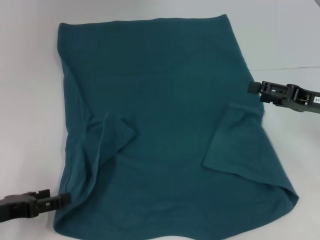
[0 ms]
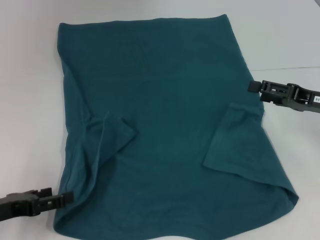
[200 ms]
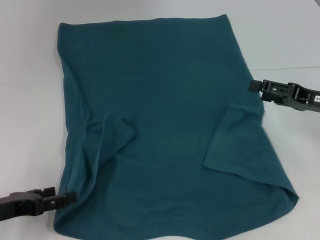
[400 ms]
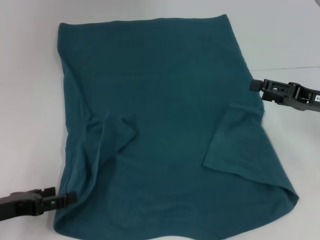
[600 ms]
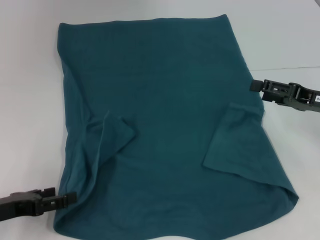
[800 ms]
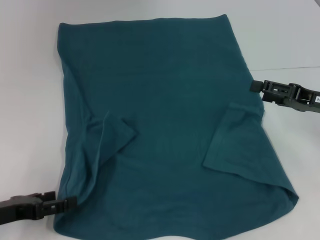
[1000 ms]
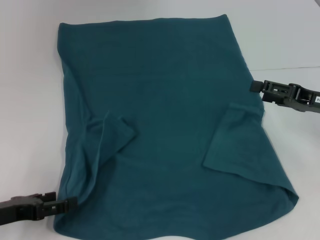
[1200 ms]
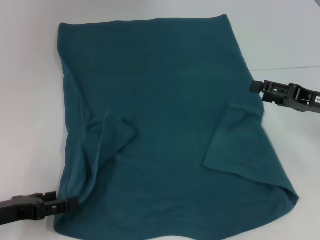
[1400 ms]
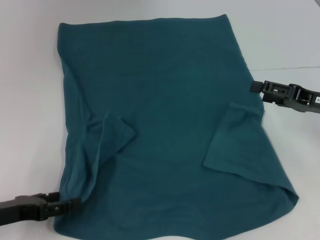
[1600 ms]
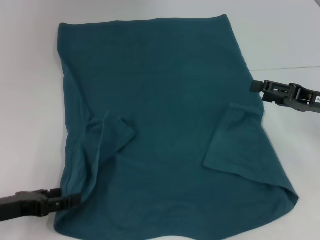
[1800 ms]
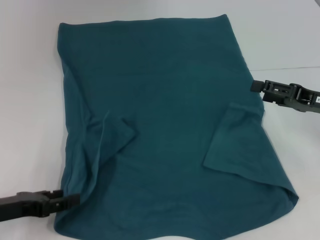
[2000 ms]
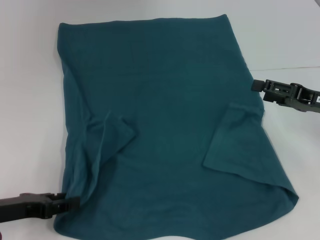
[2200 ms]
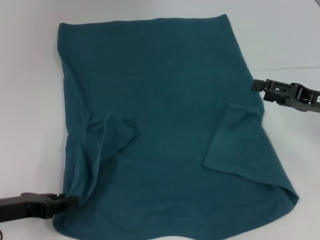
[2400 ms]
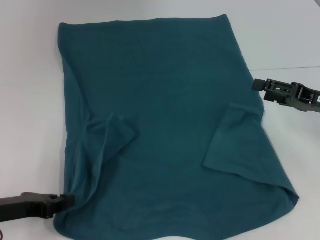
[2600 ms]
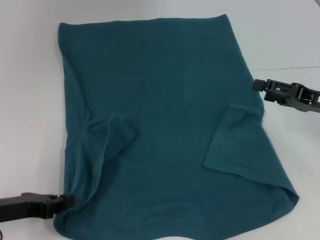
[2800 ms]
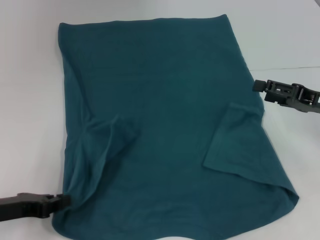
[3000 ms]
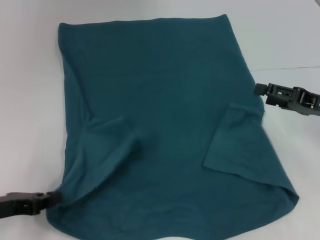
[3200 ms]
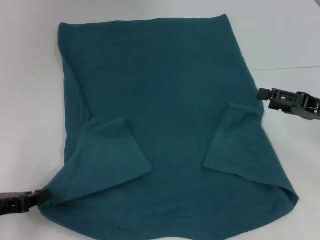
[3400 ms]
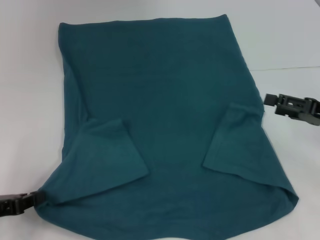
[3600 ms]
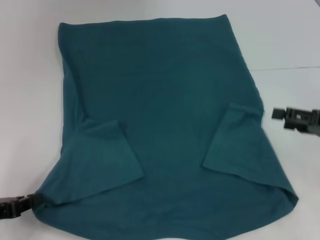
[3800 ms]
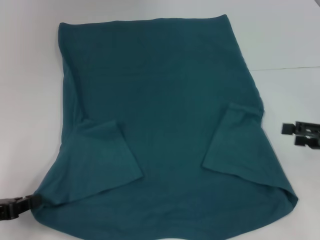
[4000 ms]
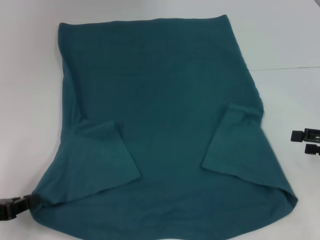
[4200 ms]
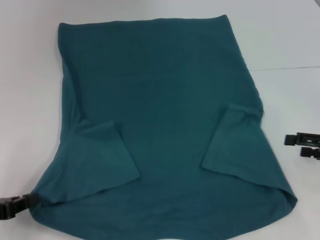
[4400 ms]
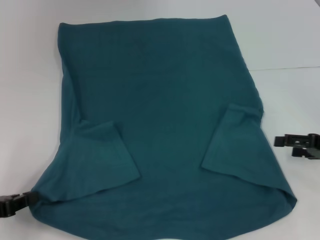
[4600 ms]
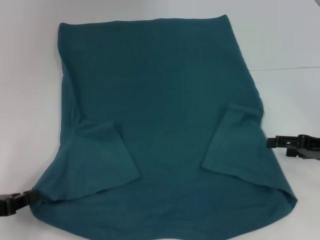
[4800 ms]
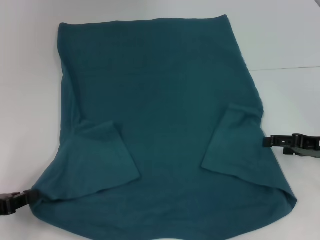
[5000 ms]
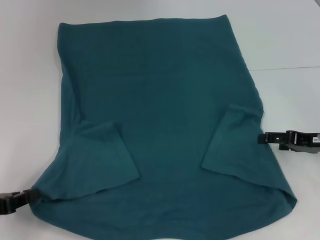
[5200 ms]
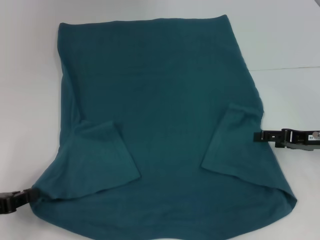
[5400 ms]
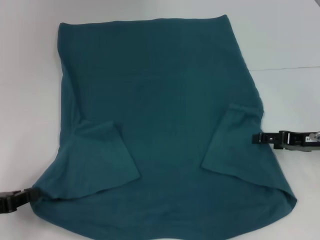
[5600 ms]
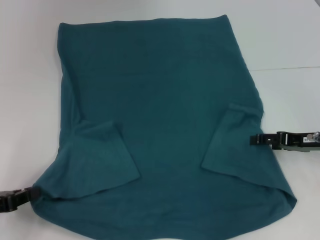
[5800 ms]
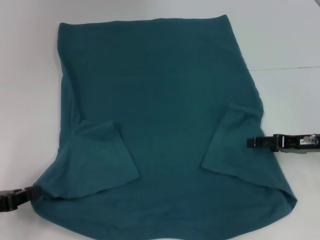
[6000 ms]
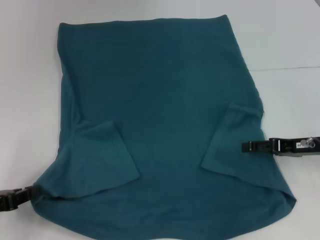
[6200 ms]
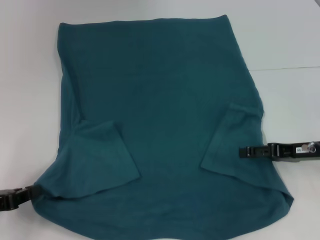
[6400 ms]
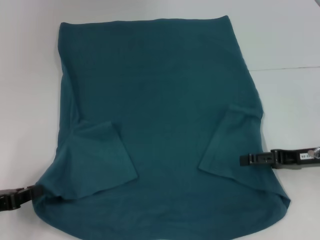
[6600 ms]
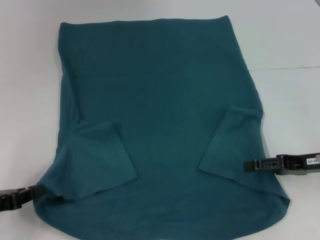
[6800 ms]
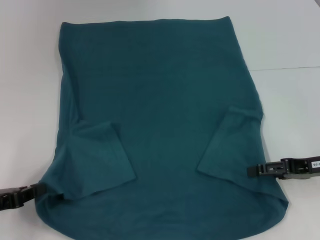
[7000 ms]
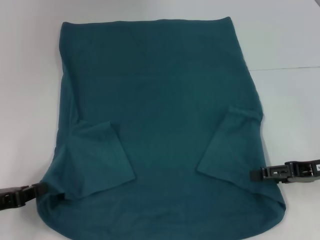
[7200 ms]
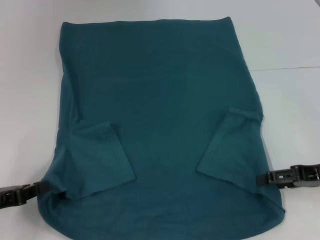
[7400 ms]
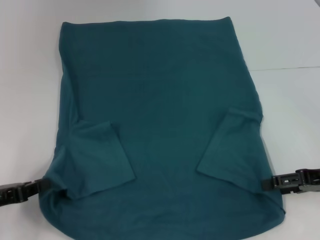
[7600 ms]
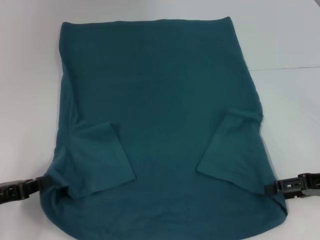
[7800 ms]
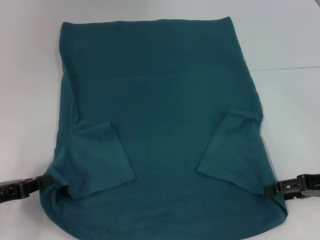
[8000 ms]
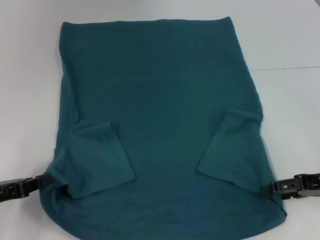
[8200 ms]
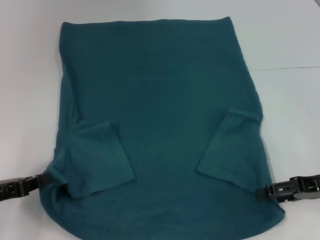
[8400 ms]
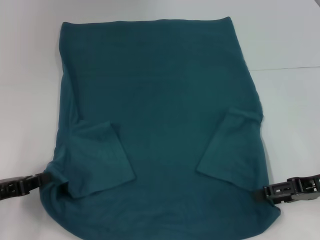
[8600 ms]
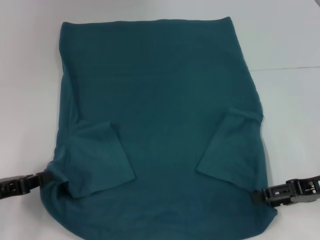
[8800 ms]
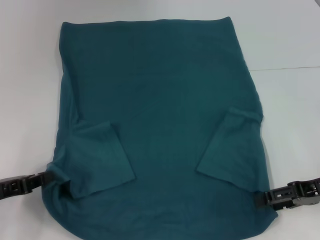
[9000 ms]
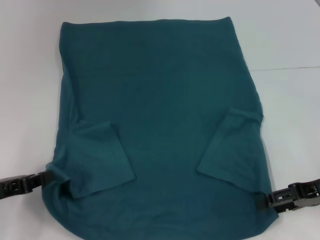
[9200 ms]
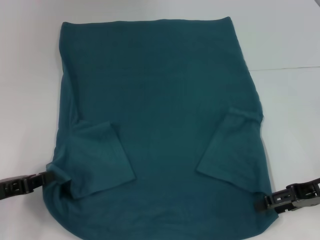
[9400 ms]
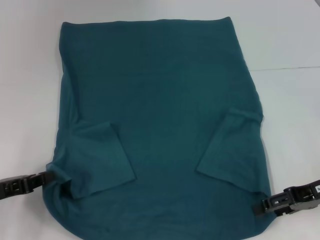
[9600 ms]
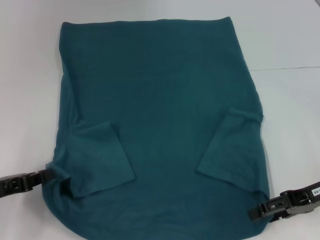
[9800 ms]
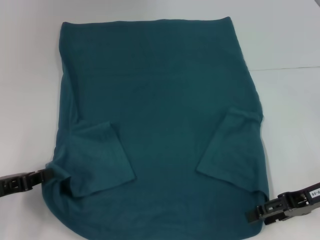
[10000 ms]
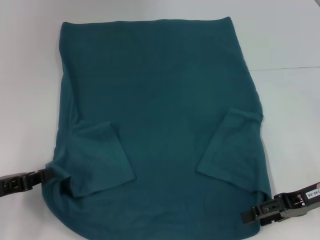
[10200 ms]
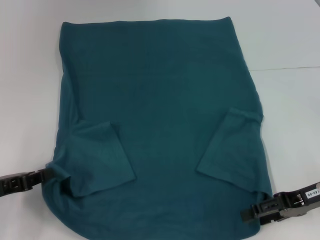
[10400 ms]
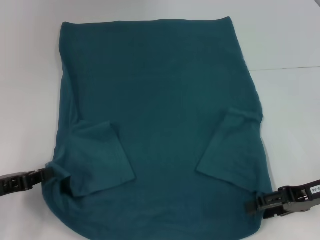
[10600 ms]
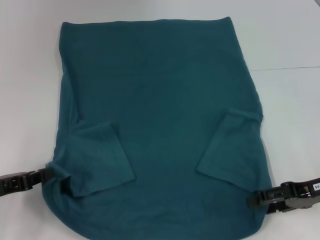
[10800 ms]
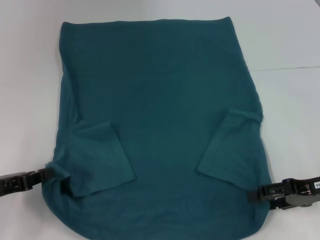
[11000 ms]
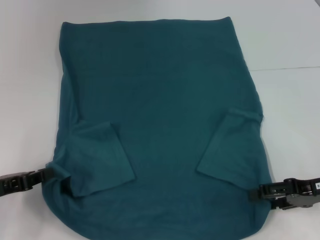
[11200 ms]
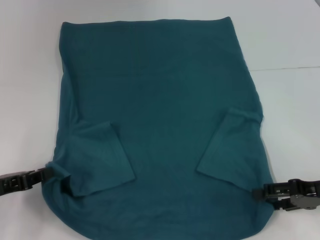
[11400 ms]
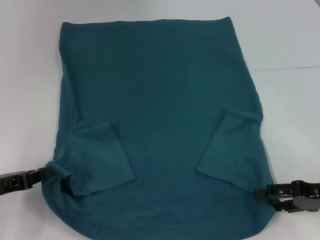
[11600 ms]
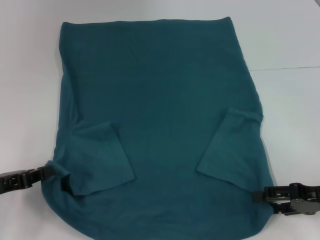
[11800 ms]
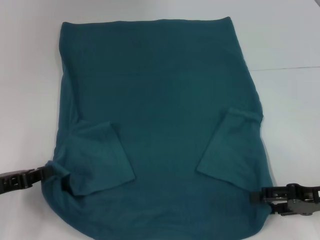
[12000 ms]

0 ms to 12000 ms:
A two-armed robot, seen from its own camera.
Step, 0 ms to 3800 ms: Grab the bottom left corner with your left hand.
0 ms to 1600 ms: Both grippers stay about where they are.
1600 ms to 3000 ms: The left gripper closes its fingers.
3000 ms to 4400 ms: The left gripper changes place by approximately 5 cm, while the right gripper ends up about 5 cm from where it was.
4400 ms to 6000 ms: The right gripper heads to the left, covering some 5 cm.
6000 ms to 7600 ms: The right gripper ends up about 5 cm from where it was.
7600 ms to 12000 ms: The grippers move only a little.

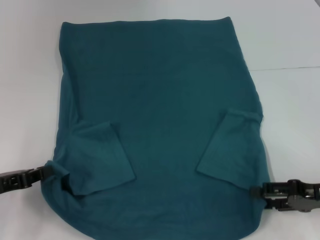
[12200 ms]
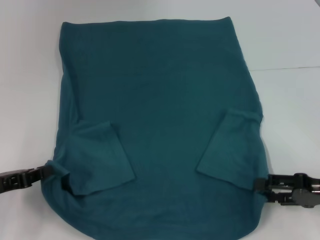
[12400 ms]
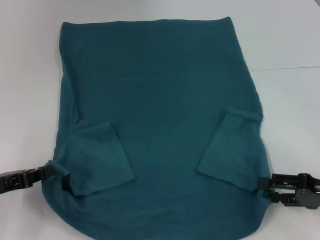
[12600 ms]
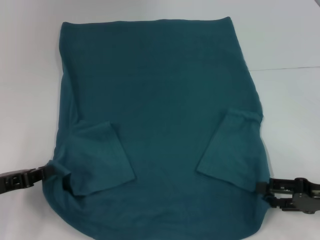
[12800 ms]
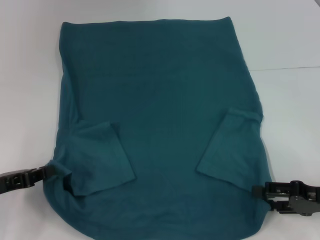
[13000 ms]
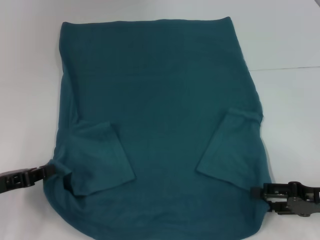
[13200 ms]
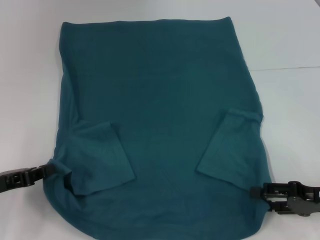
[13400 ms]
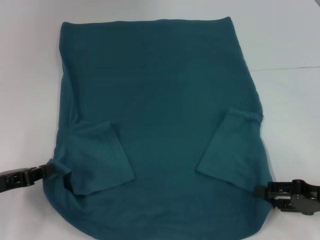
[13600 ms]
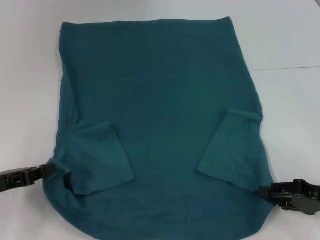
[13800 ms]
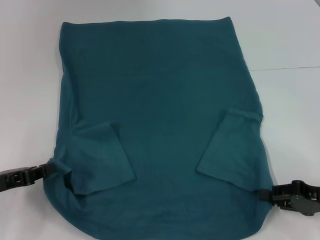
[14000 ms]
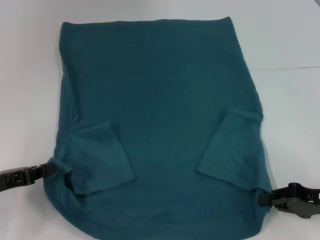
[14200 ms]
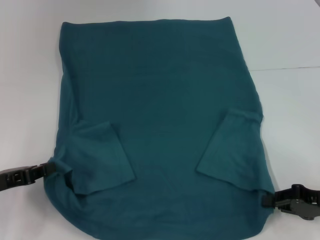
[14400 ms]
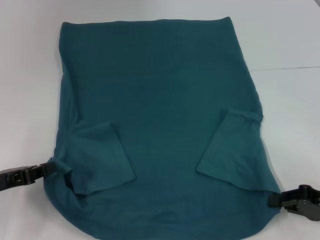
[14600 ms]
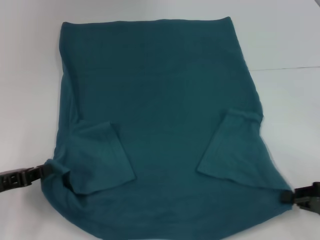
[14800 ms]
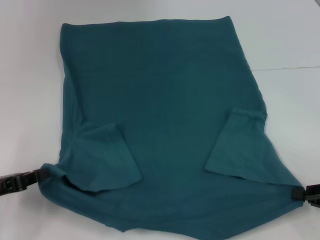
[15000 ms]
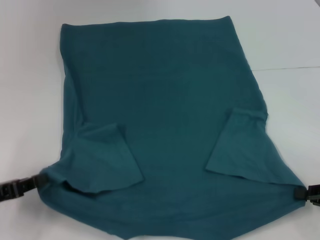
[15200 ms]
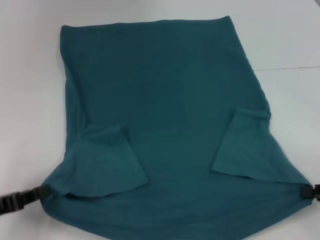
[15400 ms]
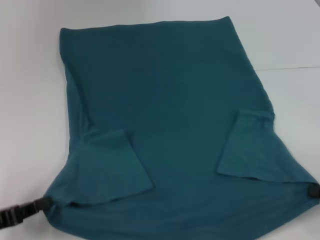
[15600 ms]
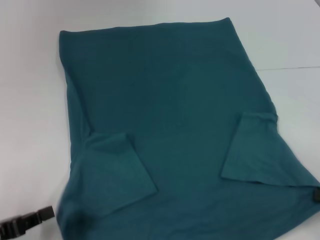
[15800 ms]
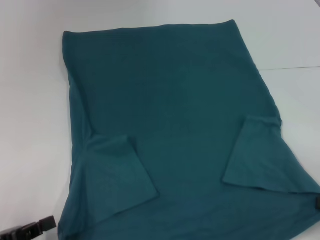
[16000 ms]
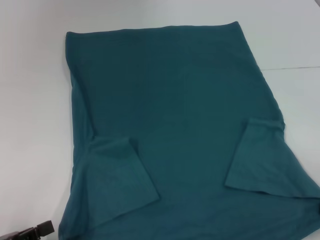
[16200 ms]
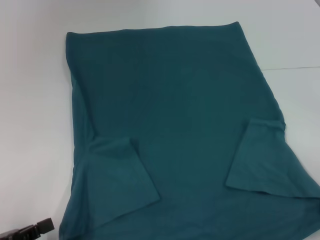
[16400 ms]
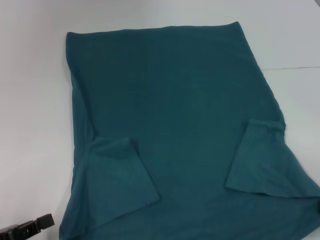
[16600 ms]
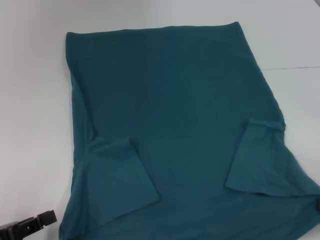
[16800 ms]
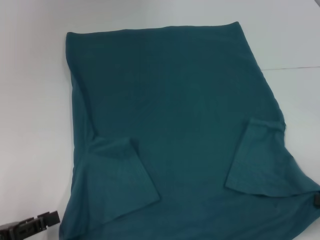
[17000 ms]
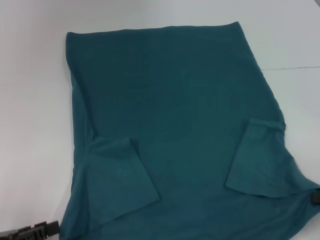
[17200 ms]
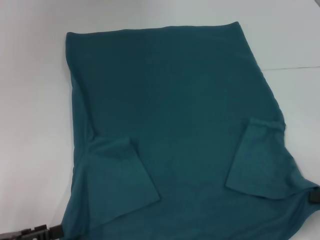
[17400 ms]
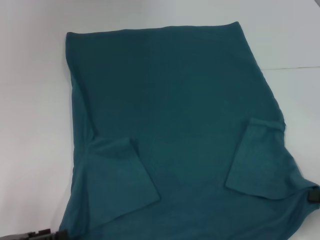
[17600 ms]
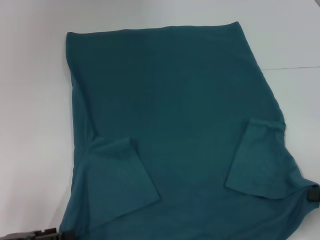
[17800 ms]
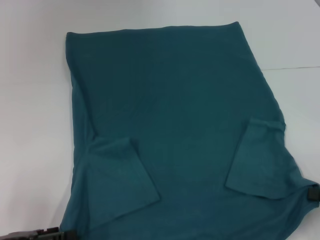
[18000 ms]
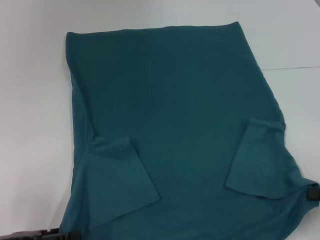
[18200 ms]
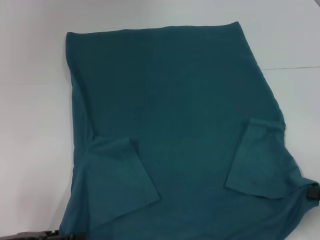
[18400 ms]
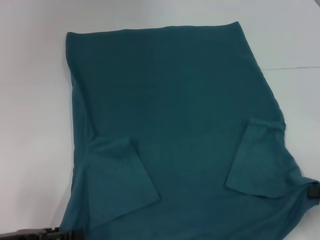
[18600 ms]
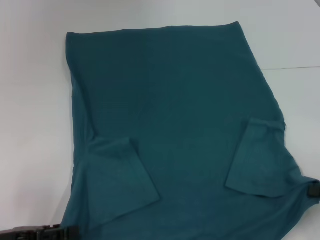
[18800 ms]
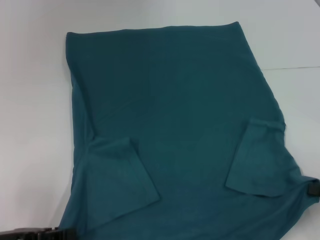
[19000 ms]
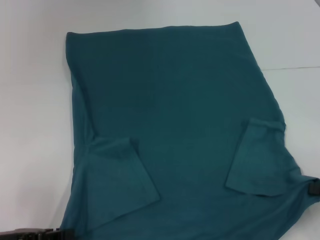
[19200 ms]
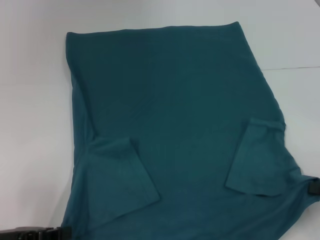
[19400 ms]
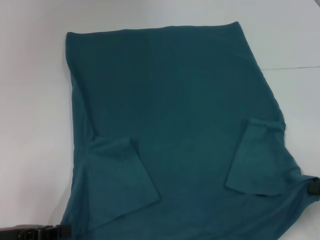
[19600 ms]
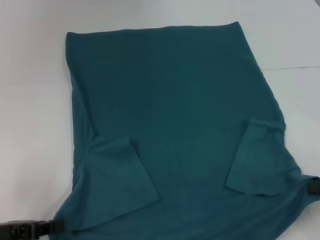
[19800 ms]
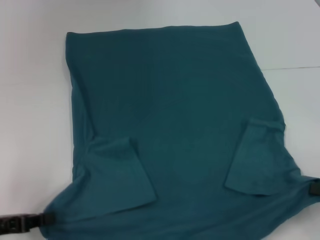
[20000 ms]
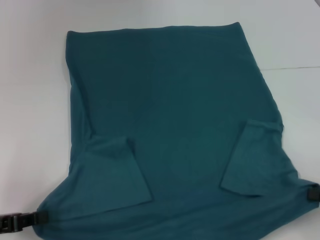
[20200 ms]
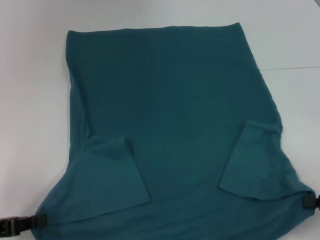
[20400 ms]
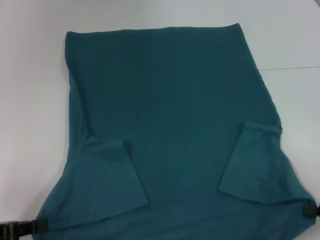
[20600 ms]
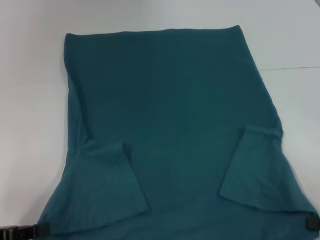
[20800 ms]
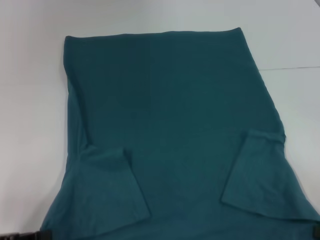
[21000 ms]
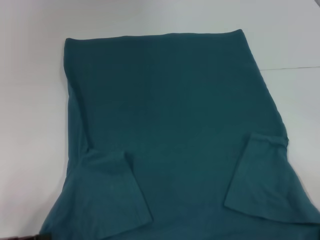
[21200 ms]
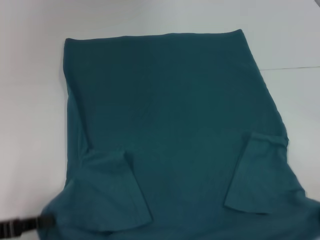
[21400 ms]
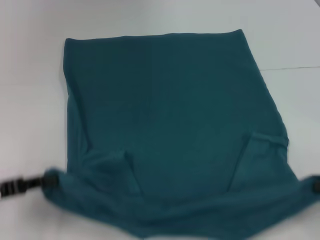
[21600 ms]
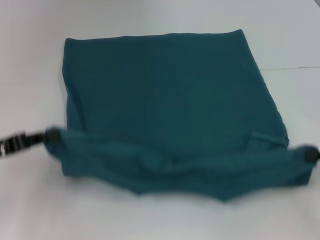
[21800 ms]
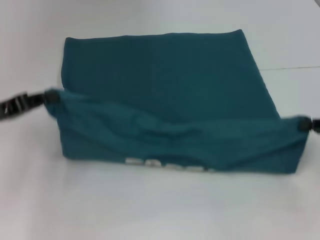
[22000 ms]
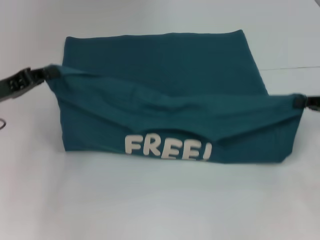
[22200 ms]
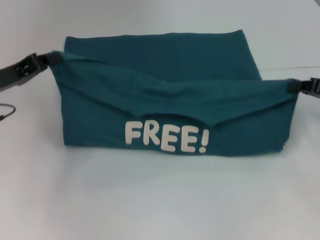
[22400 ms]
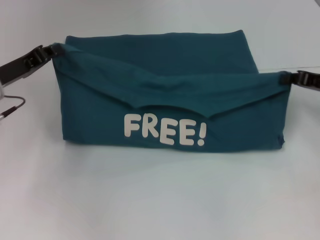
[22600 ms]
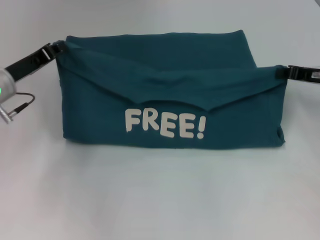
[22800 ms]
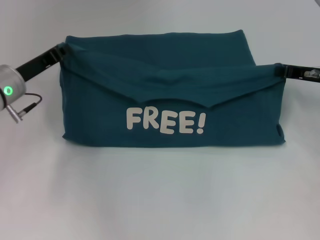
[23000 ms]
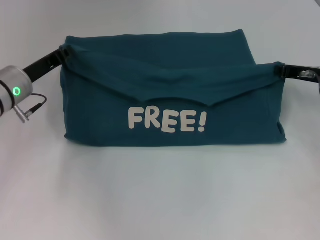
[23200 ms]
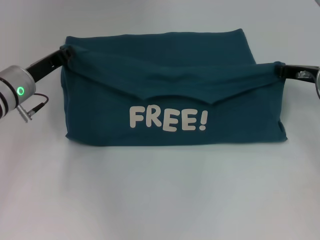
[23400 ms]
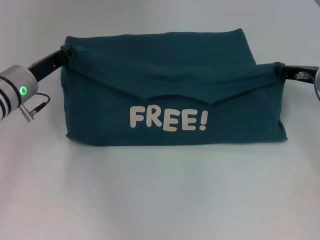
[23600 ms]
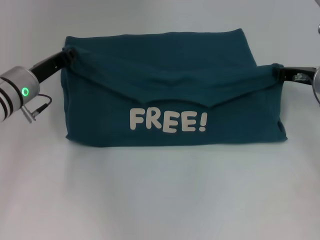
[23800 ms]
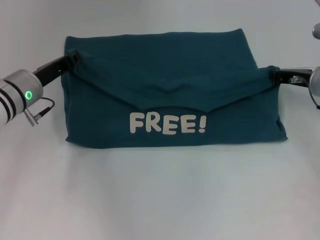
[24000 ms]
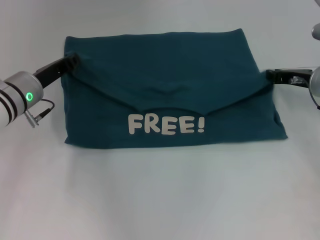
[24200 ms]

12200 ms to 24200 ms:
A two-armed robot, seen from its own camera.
Step, 12200 ms to 14400 ms: Grab the bottom right corner with your right hand.
12200 ms to 13800 ms: There are only small adjustments of the grippers.
13800 ms to 15200 ms: The right gripper closes up.
15200 ms to 16600 ms: The left gripper shifts some 5 cm backward.
16600 ms to 18200 ms: The left gripper opens up.
18200 ms to 19800 ms: The left gripper closes its fingers.
19800 ms to 21200 ms: The right gripper shifts about 5 cm backward.
21200 ms to 22600 ms: Both grippers move forward, some 20 cm.
22600 ms to 24200 ms: The left gripper shifts approximately 5 cm to the right. Meanwhile the right gripper shifts by approximately 5 cm.
